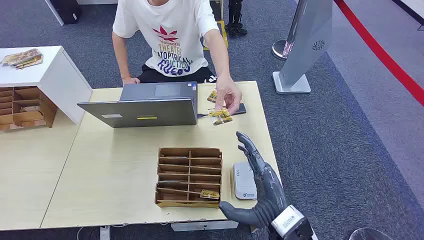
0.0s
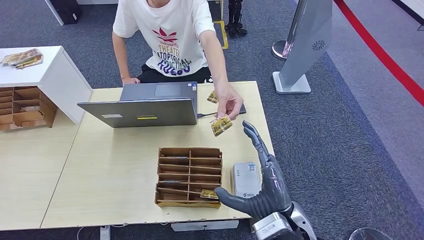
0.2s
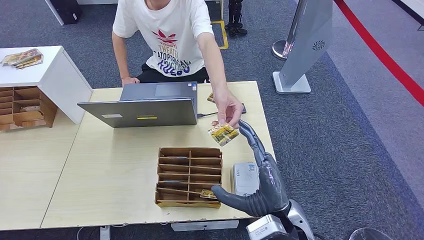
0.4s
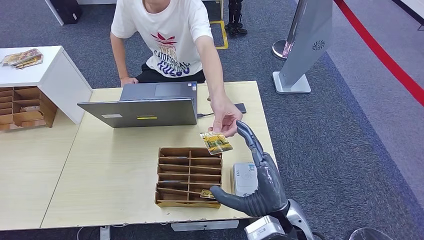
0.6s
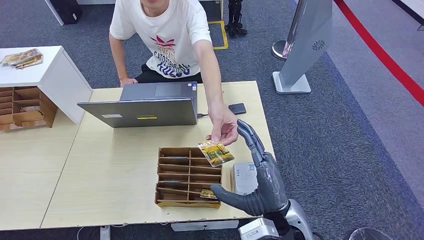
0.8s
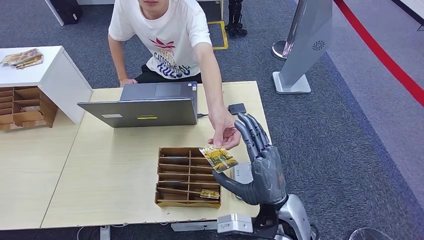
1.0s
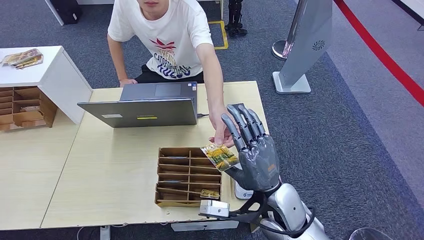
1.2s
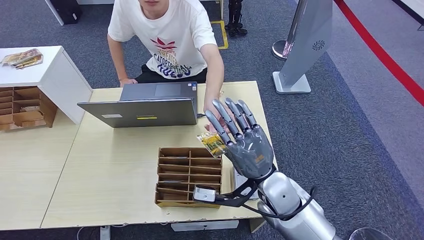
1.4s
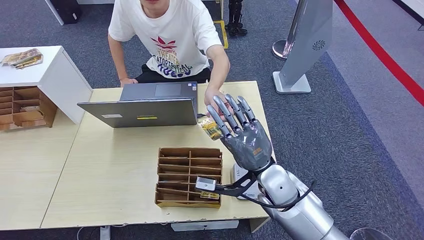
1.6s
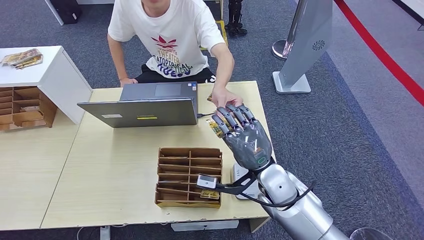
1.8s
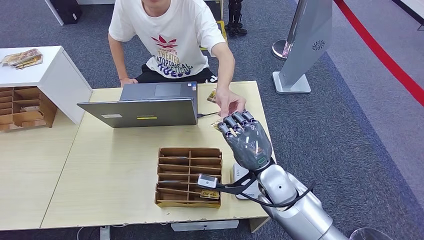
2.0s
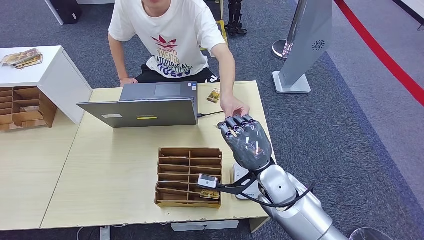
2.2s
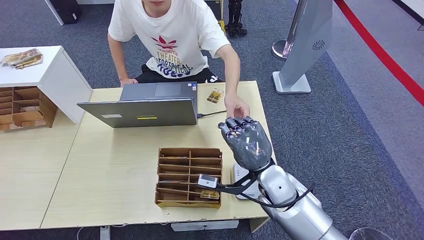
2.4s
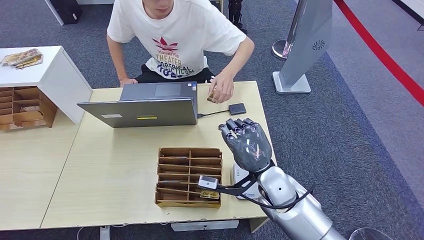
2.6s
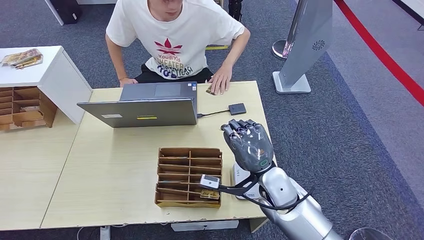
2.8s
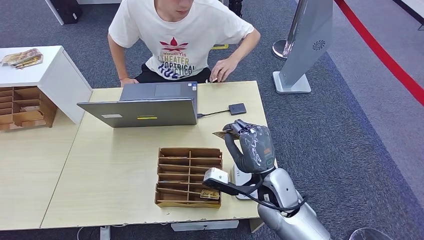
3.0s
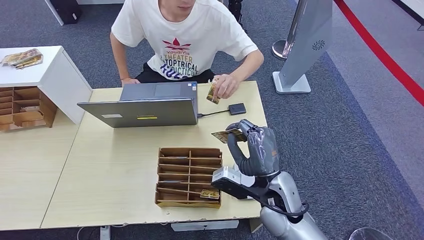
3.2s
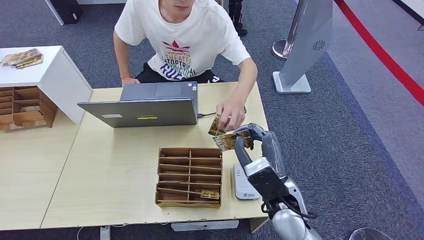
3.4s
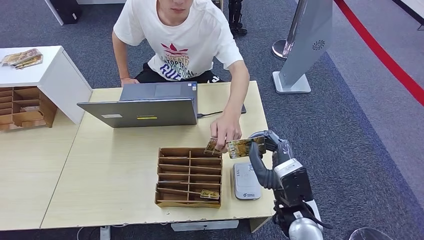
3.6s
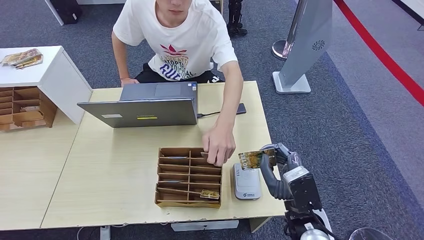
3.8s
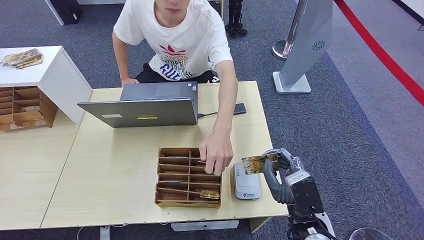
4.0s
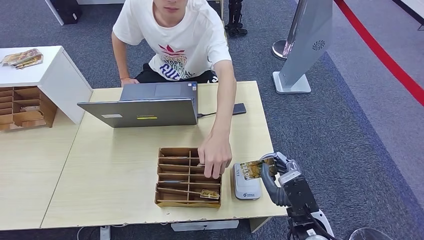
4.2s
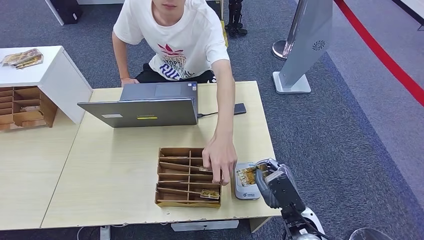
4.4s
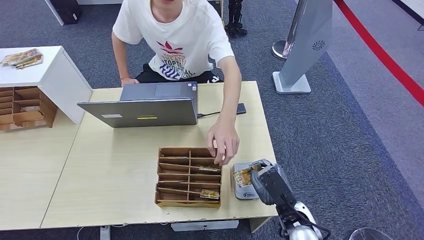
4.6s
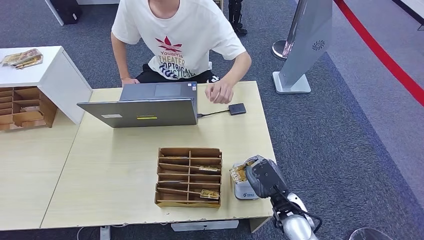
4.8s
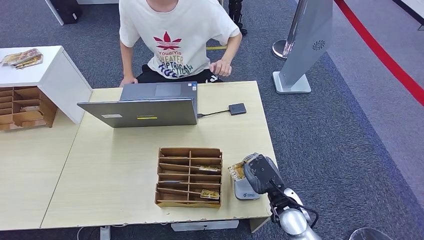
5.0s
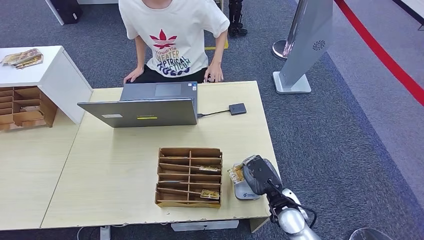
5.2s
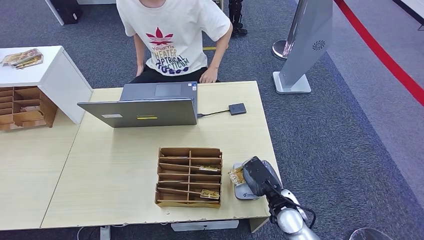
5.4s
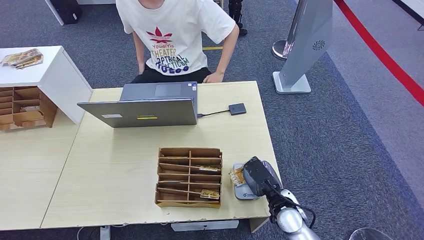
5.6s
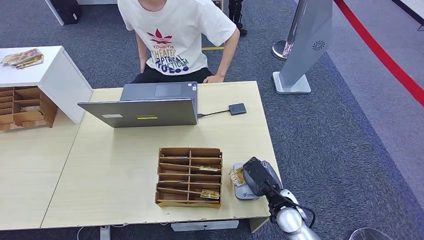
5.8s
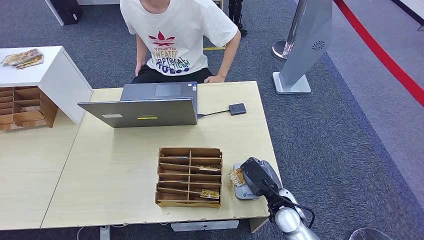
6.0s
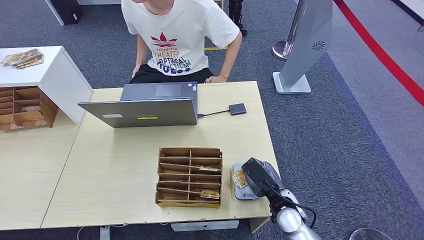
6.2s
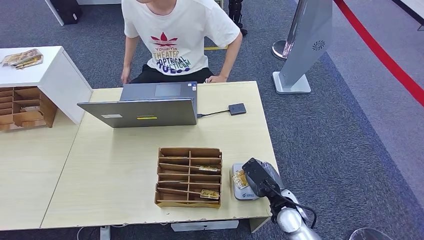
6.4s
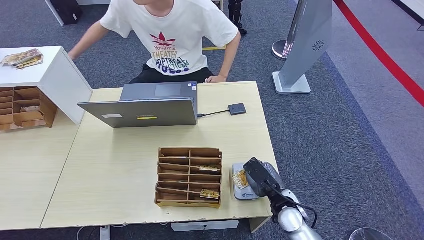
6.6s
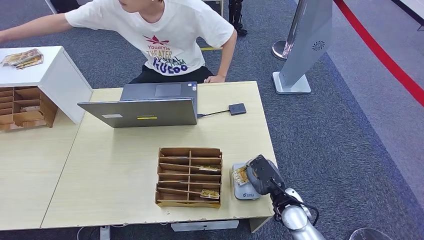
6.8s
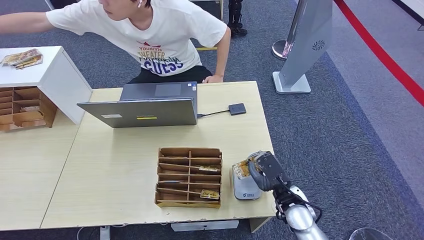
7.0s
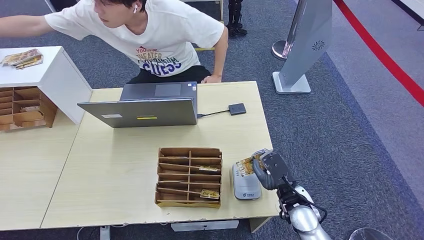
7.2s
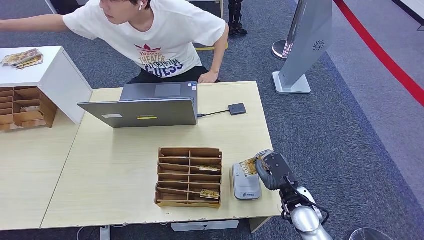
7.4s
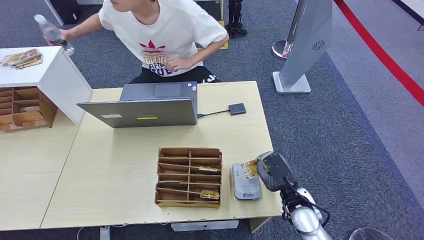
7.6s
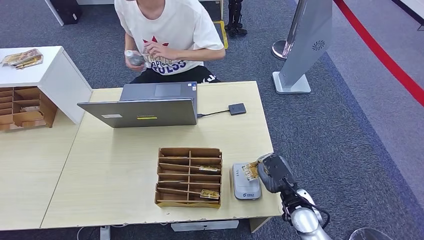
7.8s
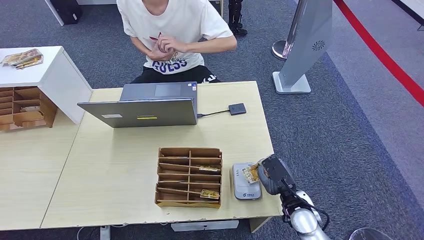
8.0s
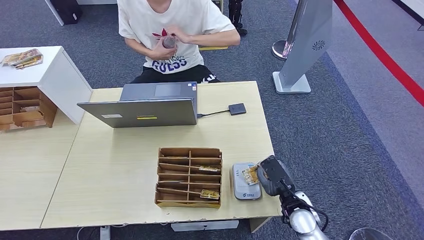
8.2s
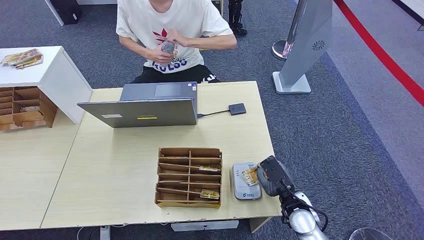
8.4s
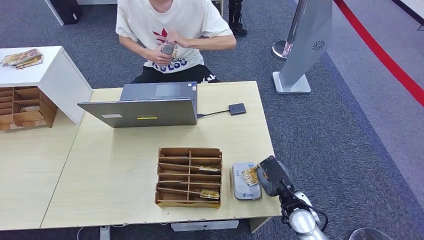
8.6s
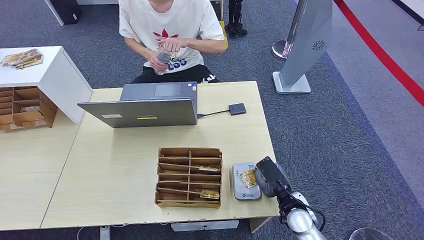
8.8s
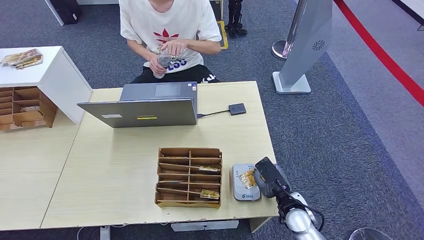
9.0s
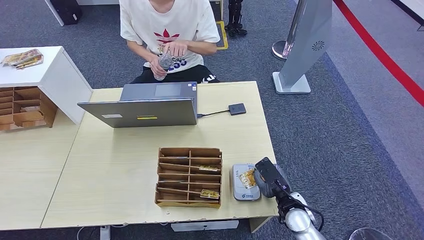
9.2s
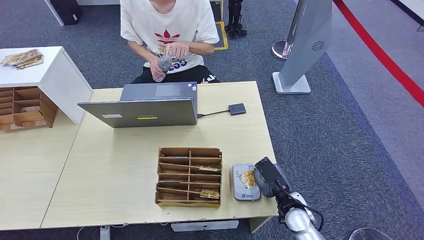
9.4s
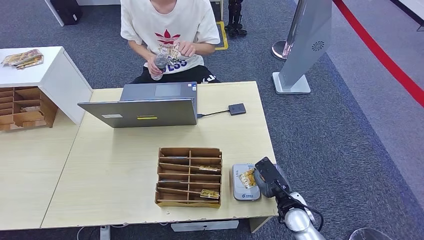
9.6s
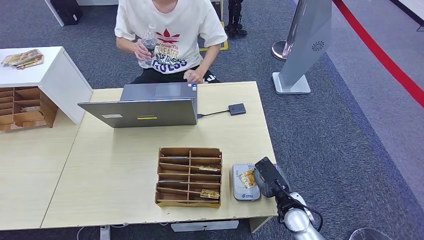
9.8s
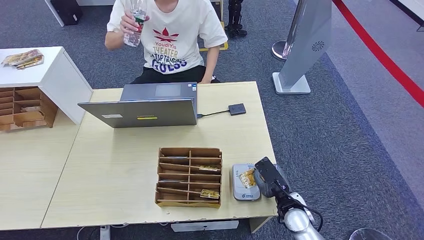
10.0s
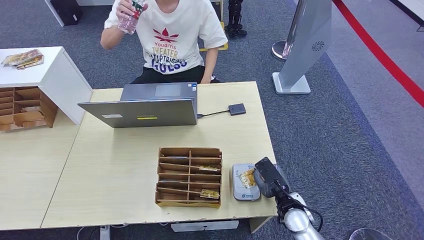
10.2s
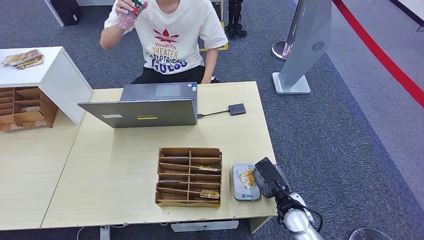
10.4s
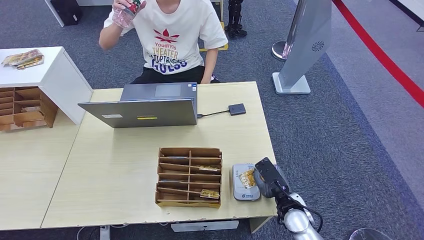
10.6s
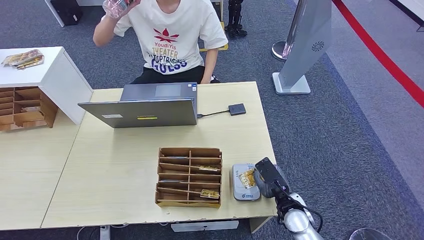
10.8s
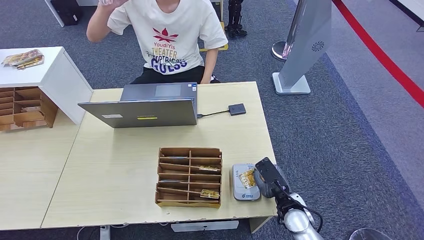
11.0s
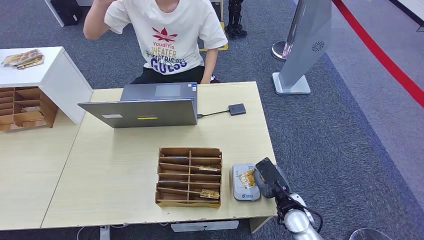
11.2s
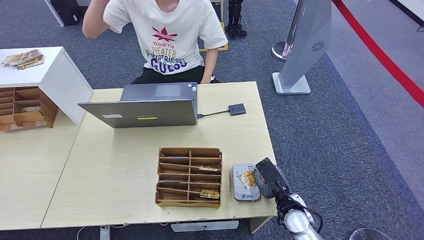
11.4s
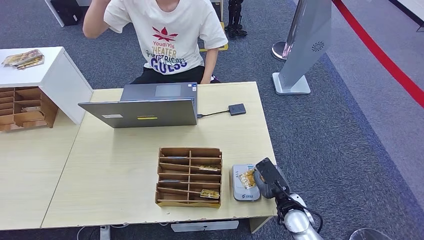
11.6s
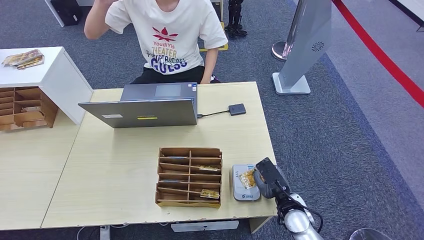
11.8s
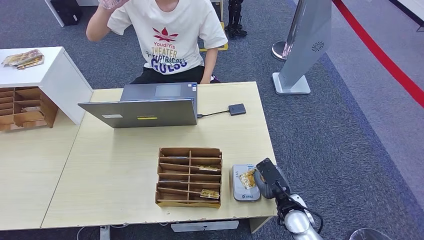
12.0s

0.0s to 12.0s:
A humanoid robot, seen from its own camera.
Step, 0.0s to 2.6s: Take the ID card from the person's hand.
Step, 2.8s to 6.2s: Place the ID card on the card reader.
3.0s to 4.4s: The right hand is displaced backward and to the right by some 10 cm.
4.4s to 6.0s: The right hand moves forward and downward, about 10 cm.
6.0s to 9.0s: There are only small adjustments of the hands.
9.0s to 12.0s: The two hands keep their place.

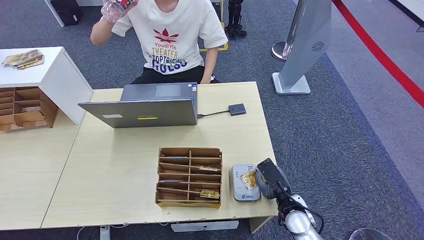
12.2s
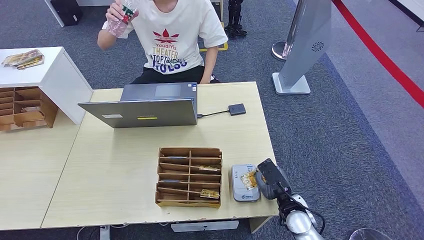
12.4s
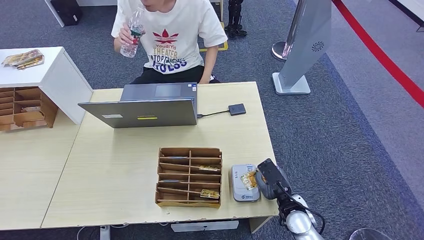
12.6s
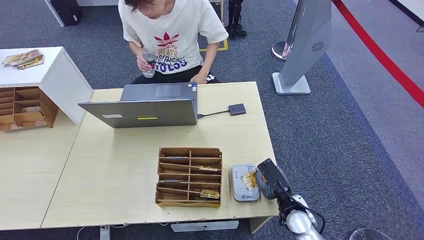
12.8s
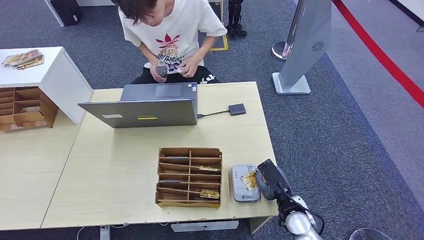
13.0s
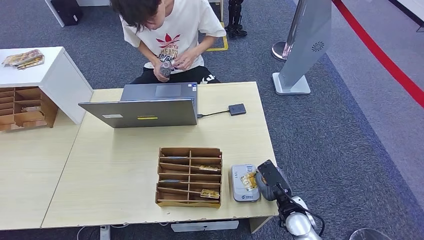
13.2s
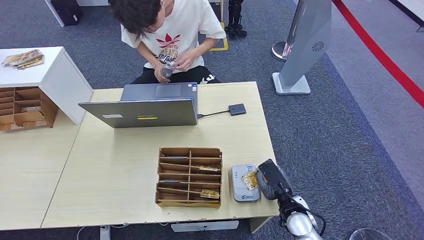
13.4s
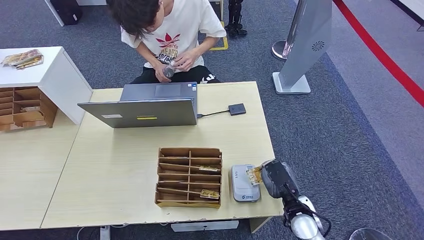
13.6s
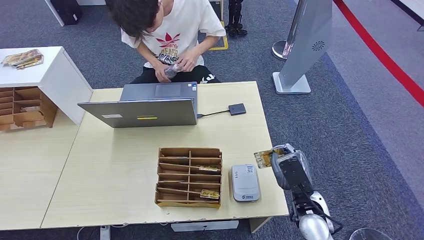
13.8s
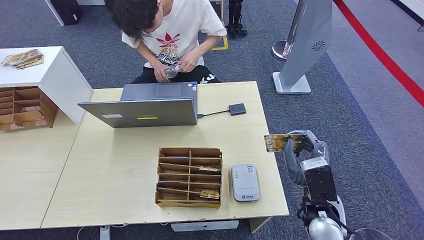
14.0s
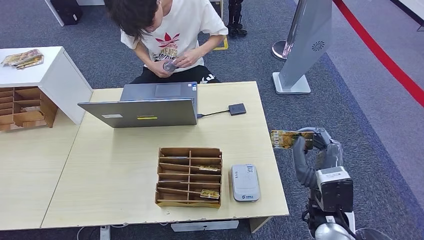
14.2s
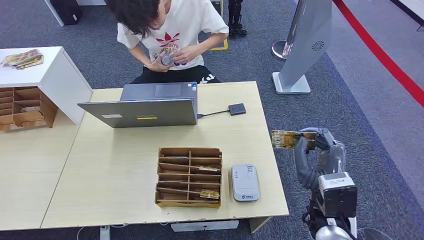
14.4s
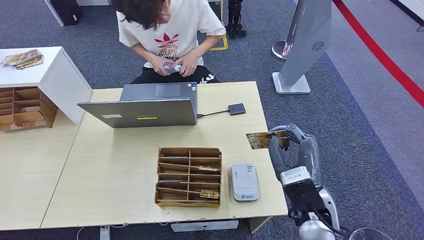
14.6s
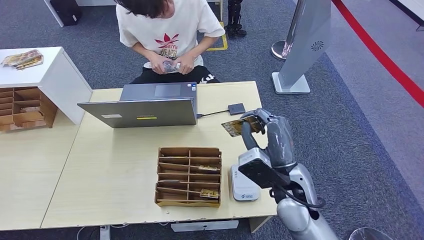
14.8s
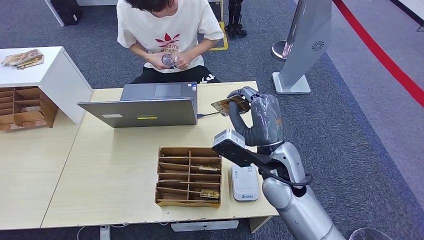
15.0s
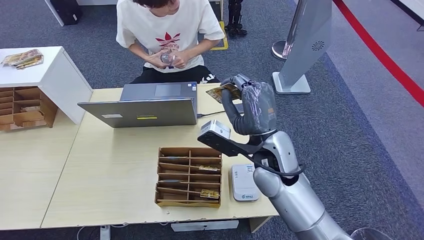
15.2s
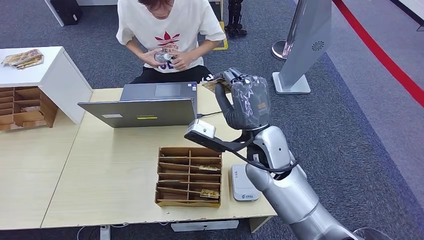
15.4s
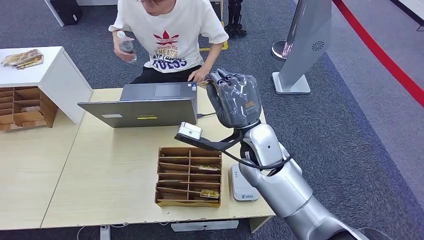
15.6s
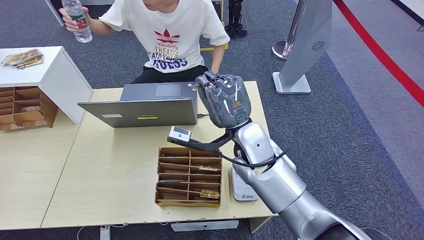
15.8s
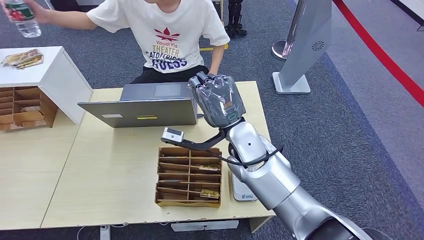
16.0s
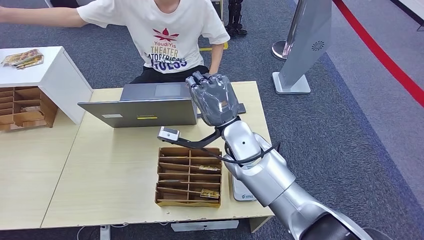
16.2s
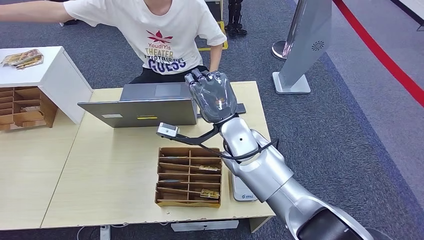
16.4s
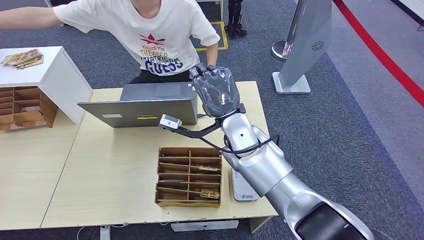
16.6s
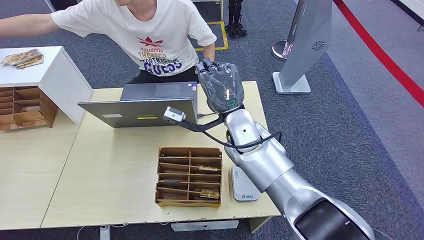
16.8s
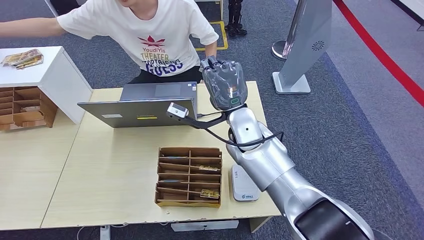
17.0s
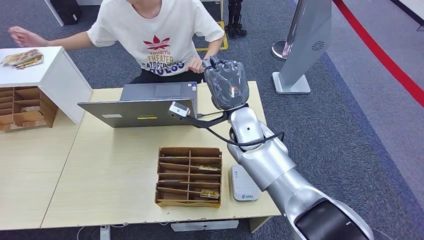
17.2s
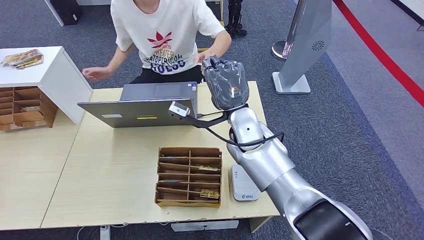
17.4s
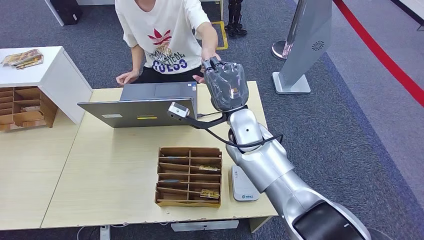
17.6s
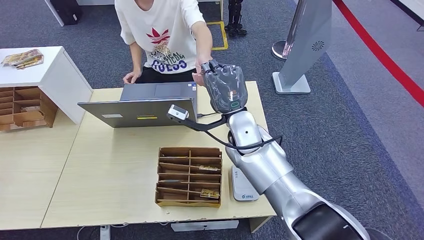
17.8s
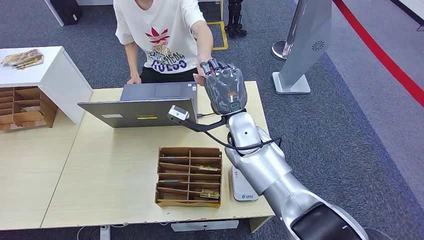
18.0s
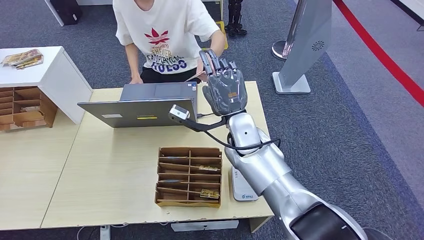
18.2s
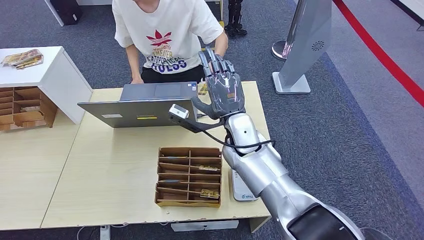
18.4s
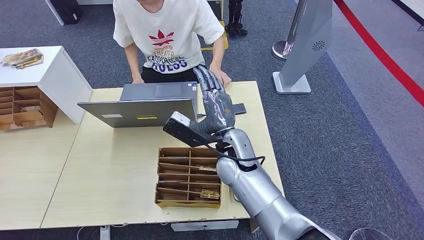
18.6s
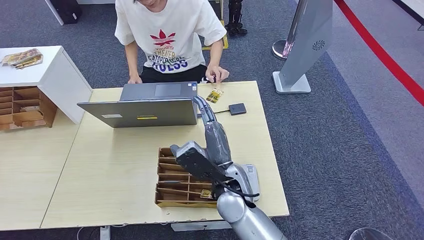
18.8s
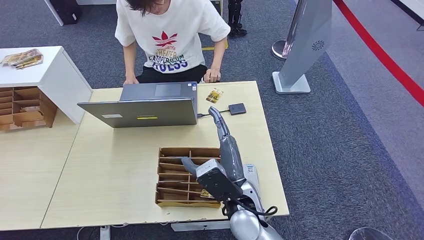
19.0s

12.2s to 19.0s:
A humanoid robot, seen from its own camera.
Step, 12.2s to 18.6s: Hand the ID card to the person.
12.2s to 13.6s: The hands stay close to where they were, moving slightly.
13.6s to 15.0s: The right hand goes about 20 cm upward and to the left.
15.0s to 16.2s: The right hand heads to the left and forward, covering approximately 10 cm.
16.2s to 17.6s: The hands stay close to where they were, moving slightly.
17.6s to 19.0s: The left hand is displaced backward by approximately 5 cm. Meanwhile the right hand goes some 15 cm backward and downward.
